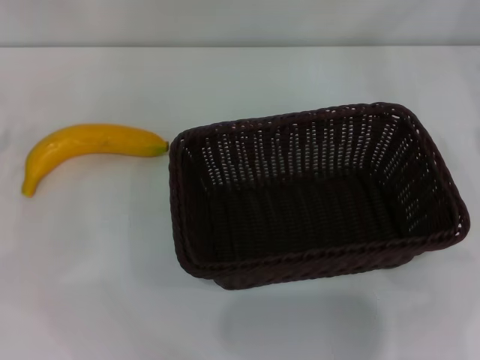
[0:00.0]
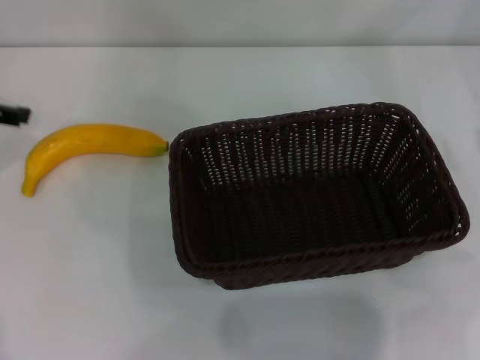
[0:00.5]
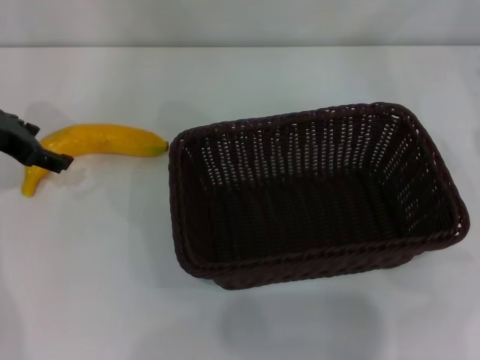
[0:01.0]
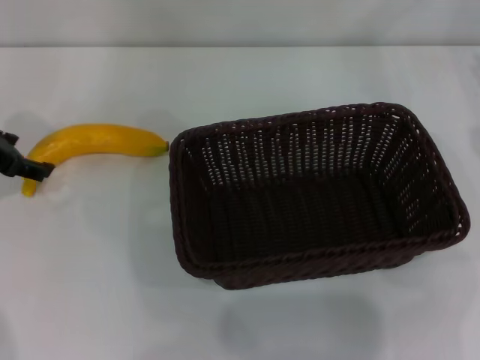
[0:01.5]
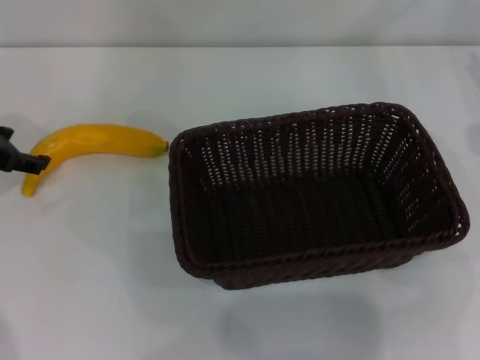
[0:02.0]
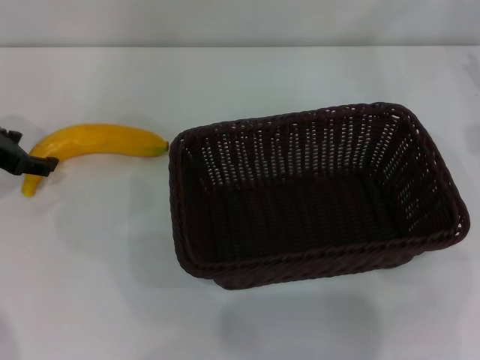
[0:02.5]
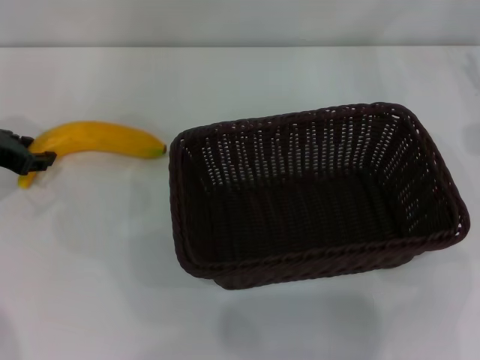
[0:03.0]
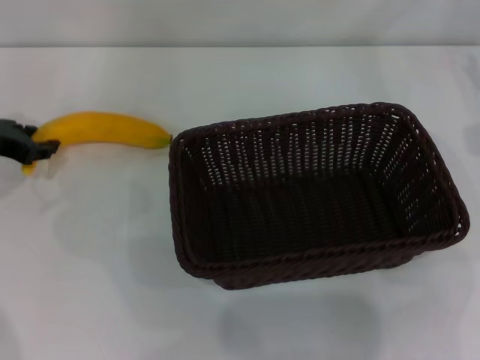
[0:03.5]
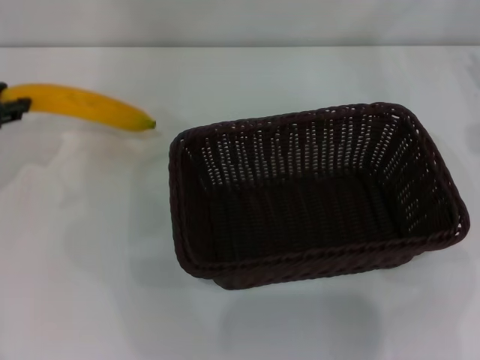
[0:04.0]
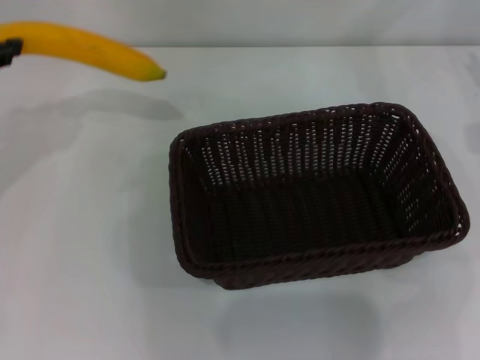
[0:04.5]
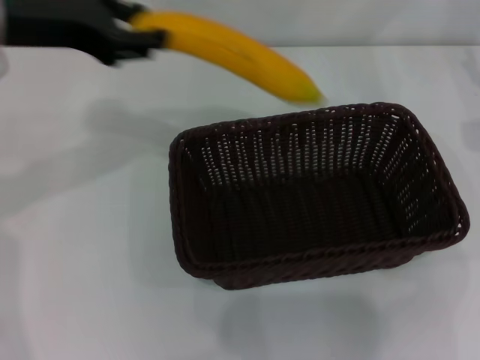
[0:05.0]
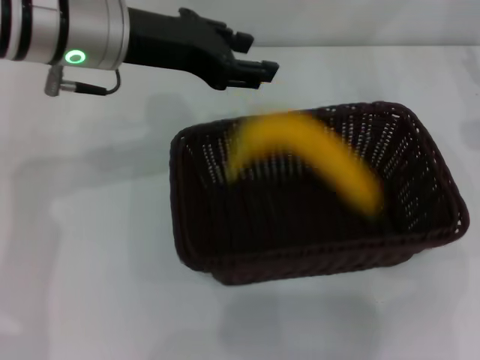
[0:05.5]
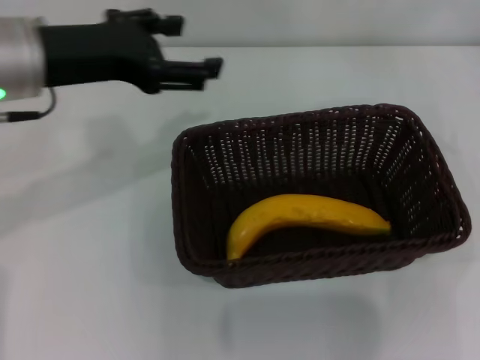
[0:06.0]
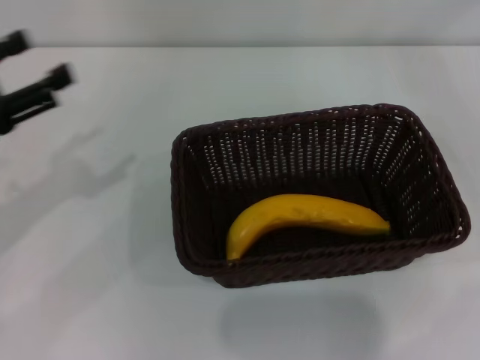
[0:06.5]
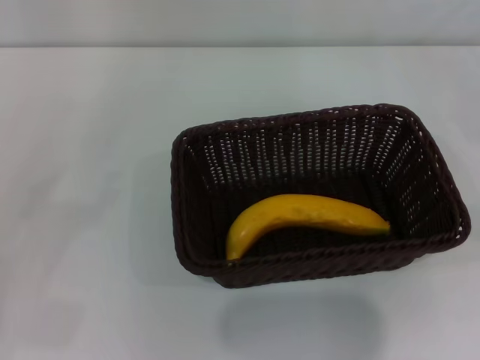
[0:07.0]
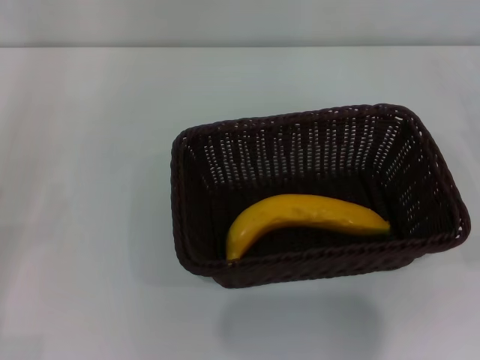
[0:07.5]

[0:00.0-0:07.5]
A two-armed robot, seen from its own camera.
0:00.0 to 0:02.0: The left gripper shifts some 10 cm to the right and downward.
0:02.0 to 0:04.0: The left gripper closes up.
0:04.0 to 0:05.5: The left gripper heads to the right, covering roughly 20 cm, and opens up.
0:05.5 to 0:07.5: The right gripper heads backward, to the right and downward, covering about 20 cm; the left gripper shifts some 35 cm to the left, backward and downward, and opens up.

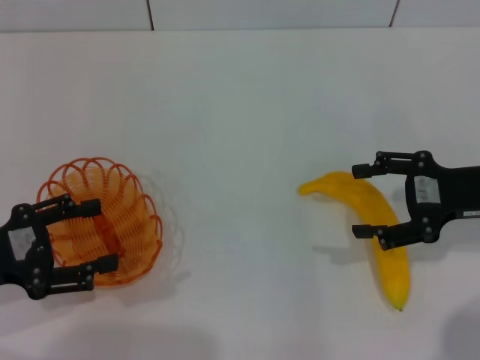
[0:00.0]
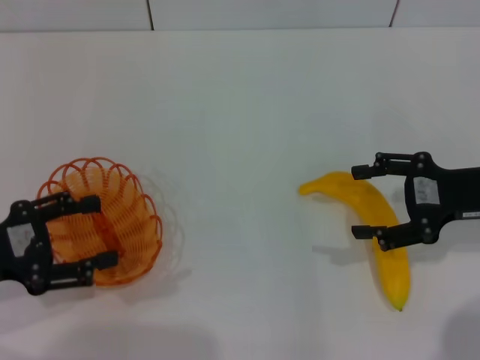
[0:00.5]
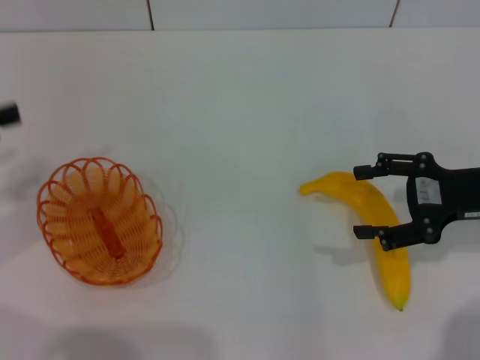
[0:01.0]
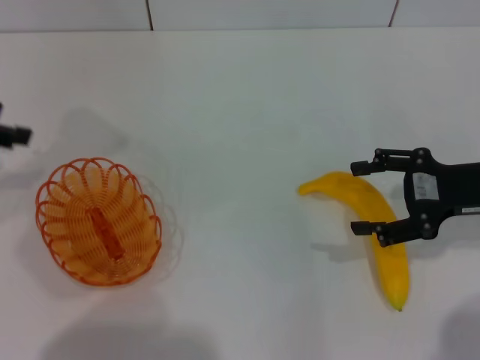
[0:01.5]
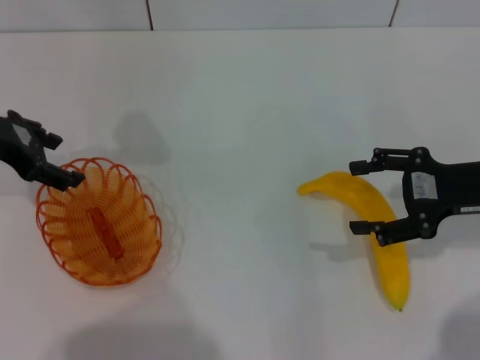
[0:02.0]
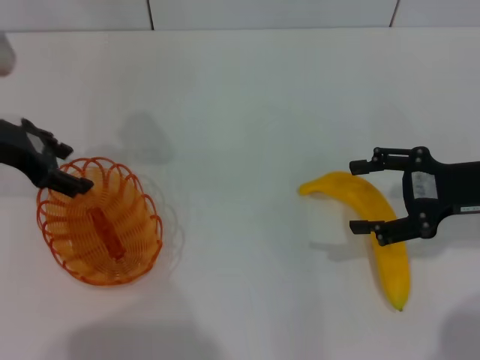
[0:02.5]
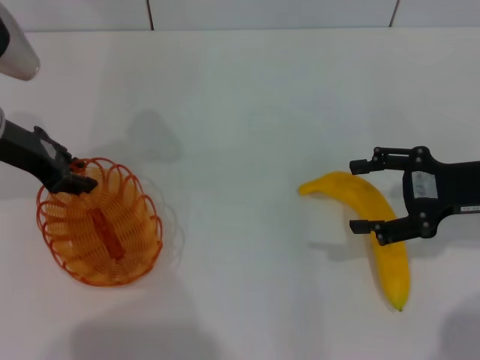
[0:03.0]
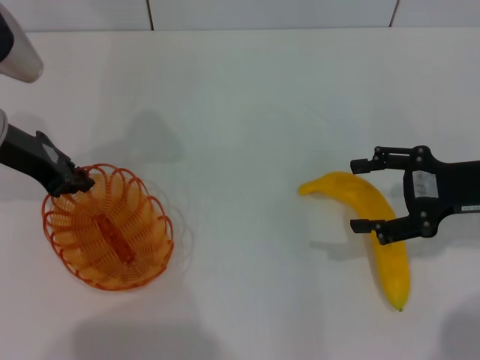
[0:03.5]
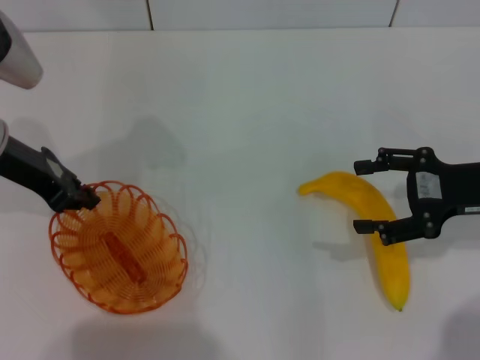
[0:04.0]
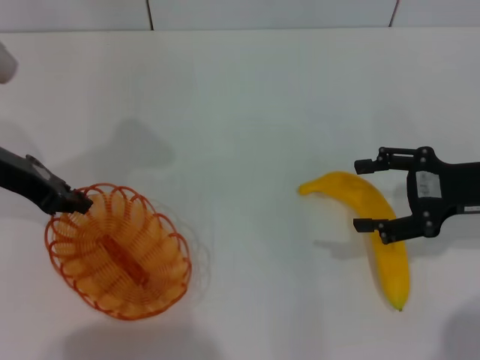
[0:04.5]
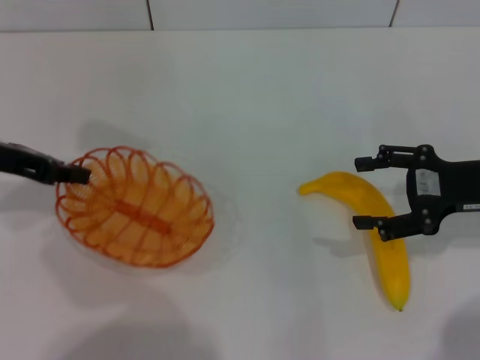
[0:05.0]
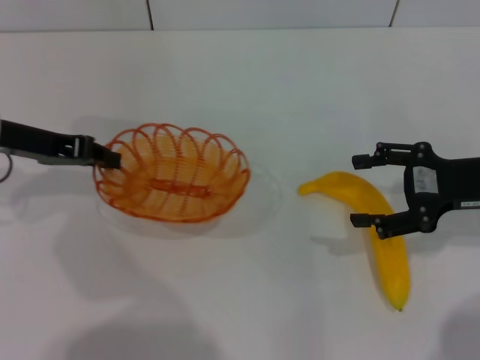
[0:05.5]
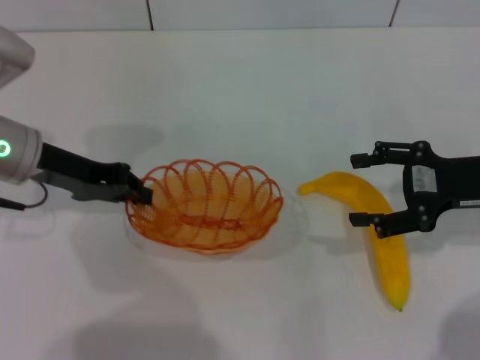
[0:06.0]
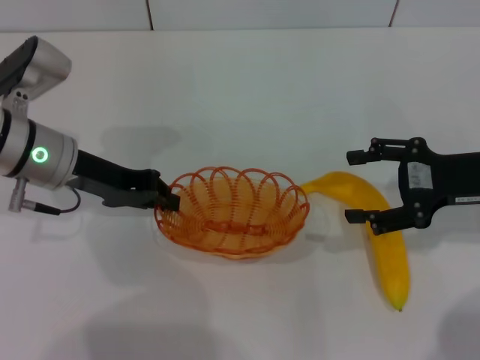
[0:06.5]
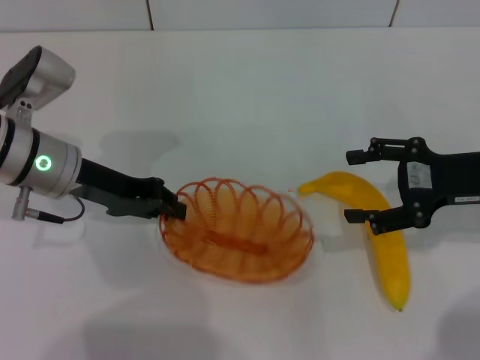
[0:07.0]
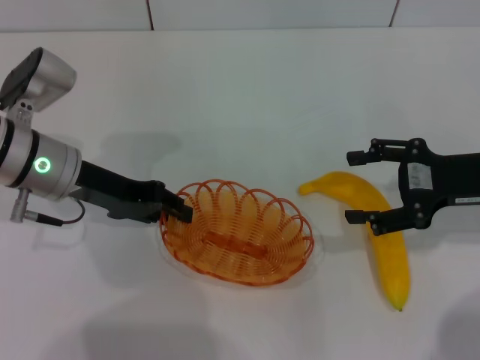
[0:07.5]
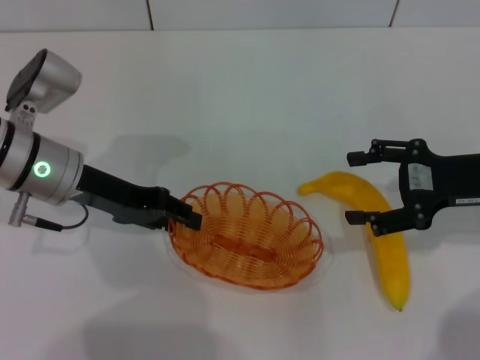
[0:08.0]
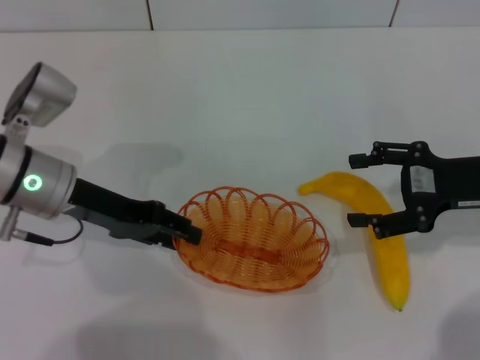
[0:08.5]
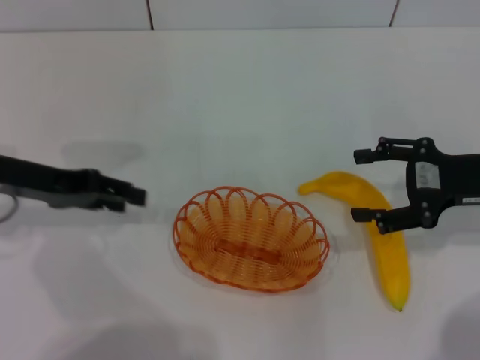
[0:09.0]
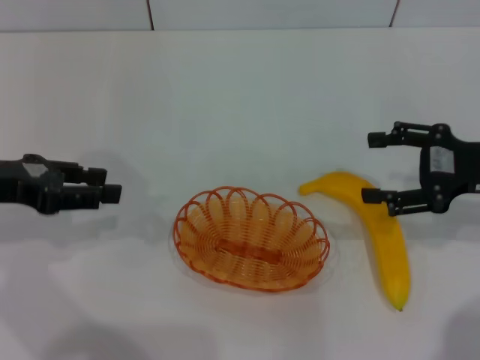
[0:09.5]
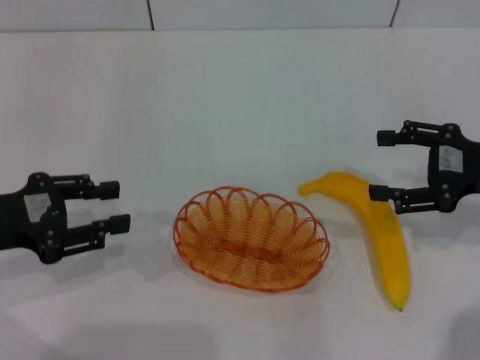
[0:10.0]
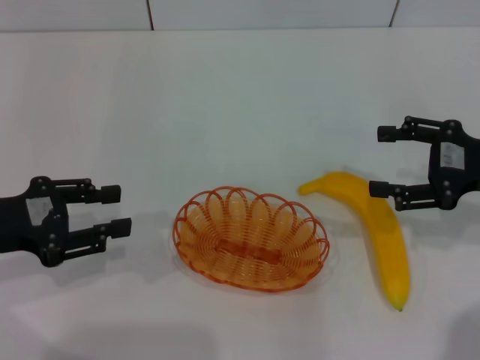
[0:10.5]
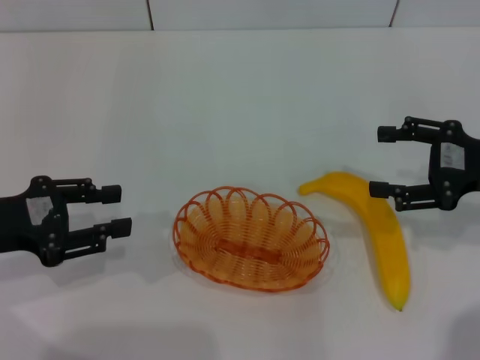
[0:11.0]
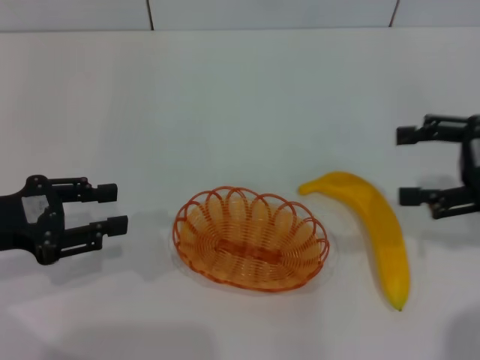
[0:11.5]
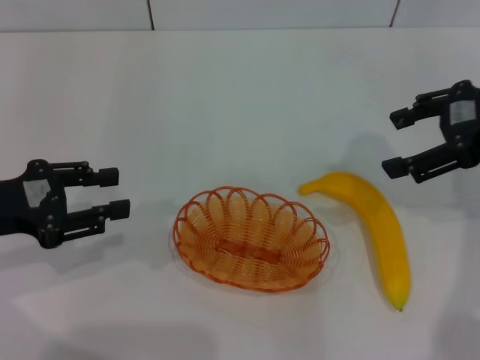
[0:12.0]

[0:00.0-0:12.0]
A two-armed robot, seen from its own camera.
Step, 0:00.0 to 0:04.5: Pick up the basket with the left gripper.
Step, 0:05.0 to 0:08.5: Place the basket in the center of view with the left gripper.
0:00.0 to 0:02.0: The left gripper goes about 15 cm forward and upward.
0:02.0 to 0:04.0: The left gripper closes its fingers.
0:06.0 to 0:08.0: The left gripper opens.
0:08.0 to 0:10.0: The left gripper heads to the left and backward, covering roughly 15 cm.
0:10.0 to 0:12.0: The right gripper travels upward by approximately 10 cm.

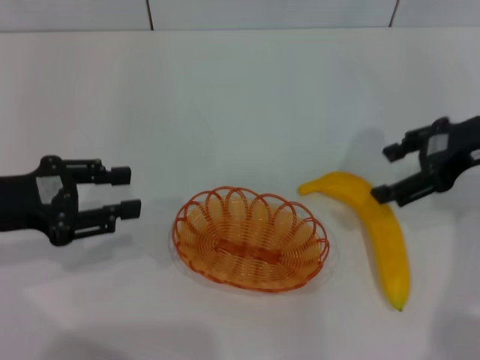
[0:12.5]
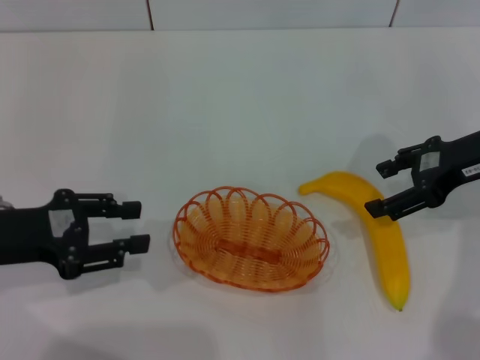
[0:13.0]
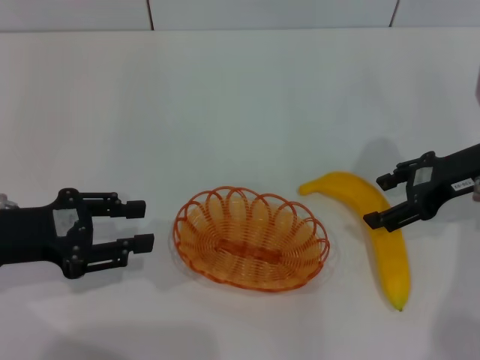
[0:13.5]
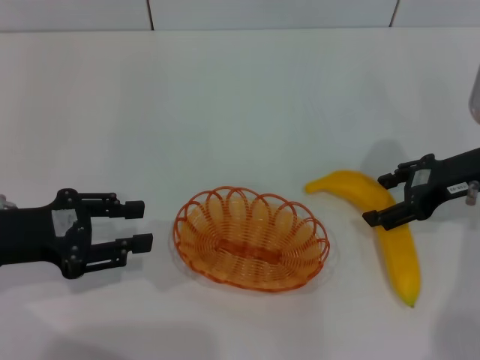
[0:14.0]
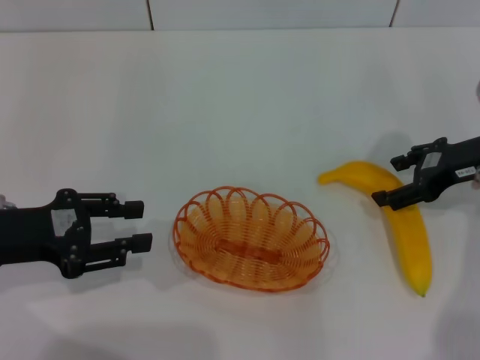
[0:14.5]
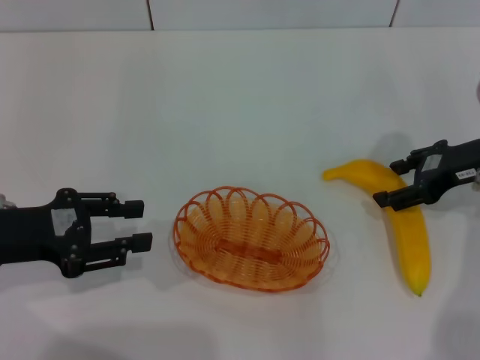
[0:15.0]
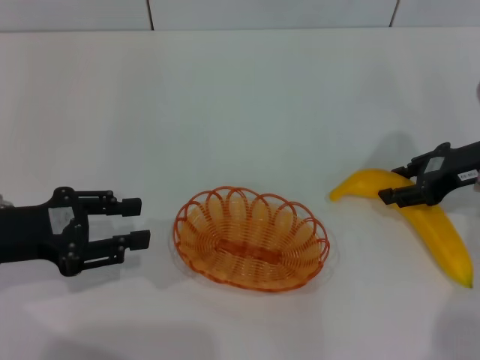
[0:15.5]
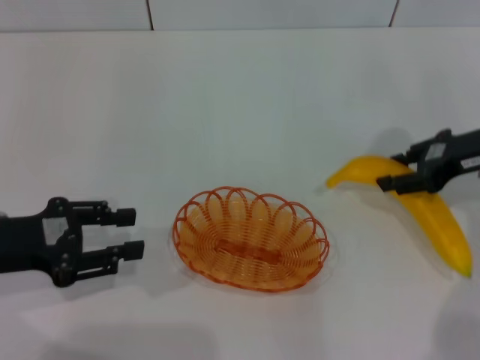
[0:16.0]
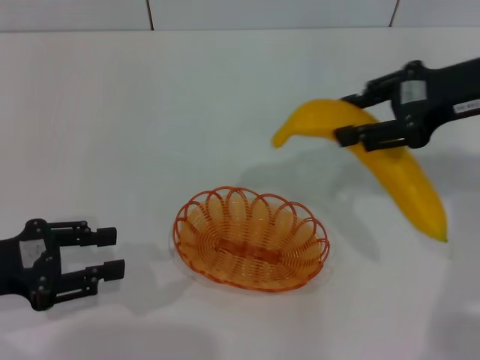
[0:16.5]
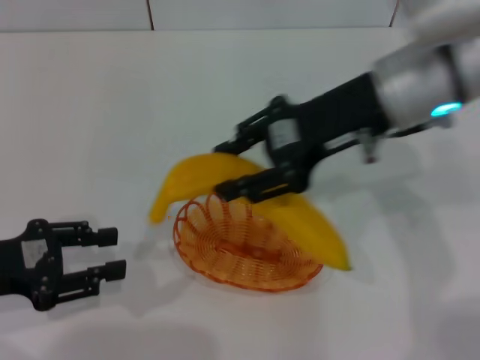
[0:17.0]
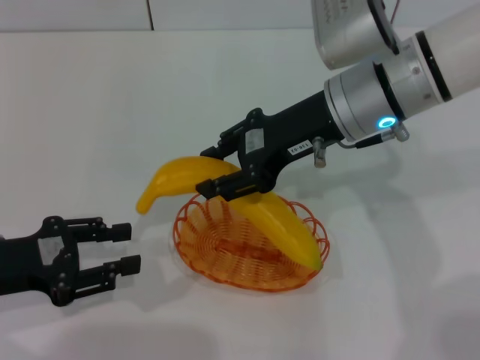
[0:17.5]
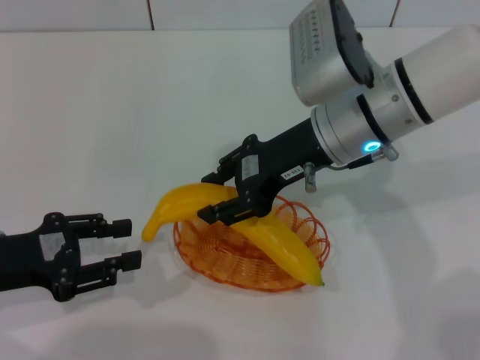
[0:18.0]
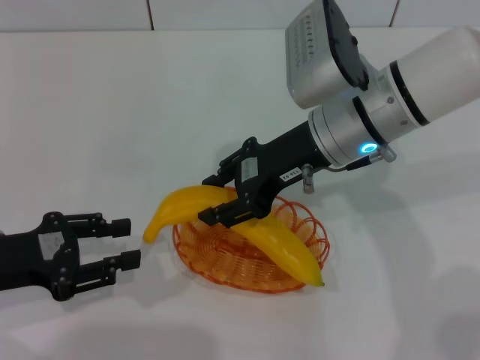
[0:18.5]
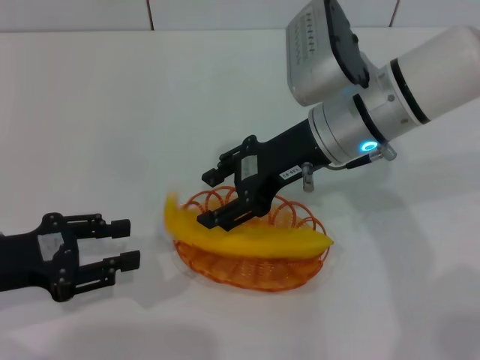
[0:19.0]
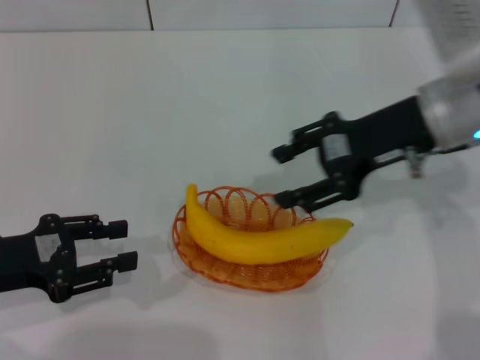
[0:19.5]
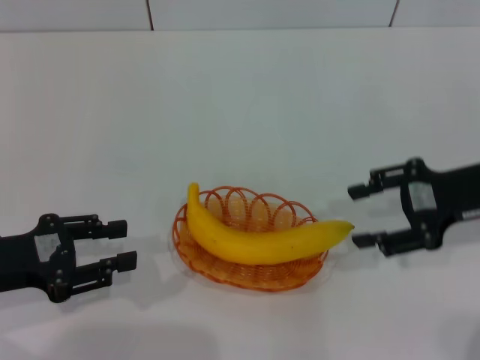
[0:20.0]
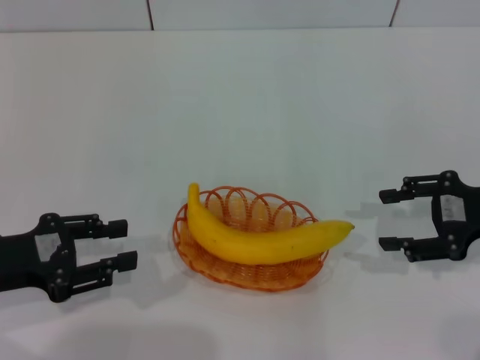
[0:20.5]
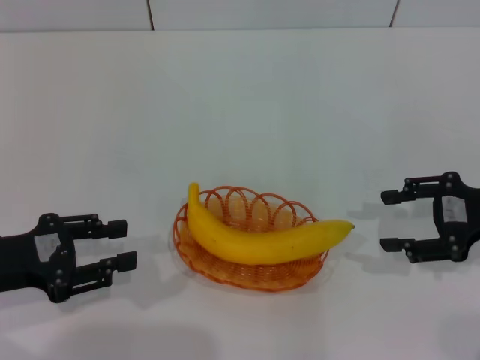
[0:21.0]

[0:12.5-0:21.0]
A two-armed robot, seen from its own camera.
Step, 0:12.5 to 0:16.0: Pick up the banana with the right gripper.
Step, 0:16.5 to 0:19.0: Place the banana into the basket with the right gripper.
0:12.5 to 0:14.5: The right gripper is displaced downward by about 5 cm.
0:14.5 to 0:16.5: The right gripper heads upward, covering some 10 cm, and closes its fingers.
0:16.5 to 0:19.0: The right gripper travels to the left and downward by roughly 15 cm, and opens its fingers.
0:19.0 to 0:21.0: The right gripper heads to the right, covering some 20 cm.
